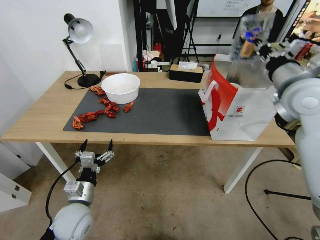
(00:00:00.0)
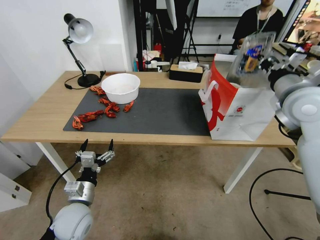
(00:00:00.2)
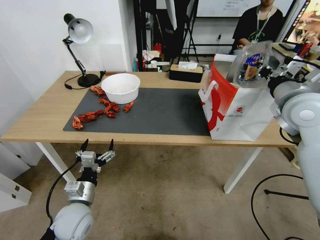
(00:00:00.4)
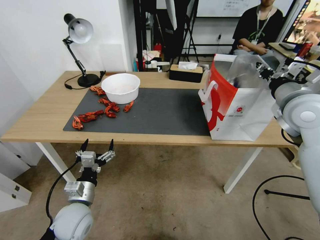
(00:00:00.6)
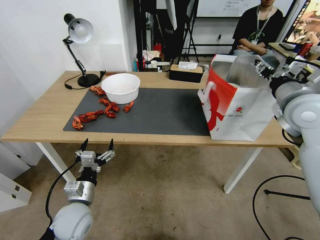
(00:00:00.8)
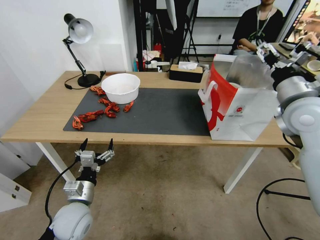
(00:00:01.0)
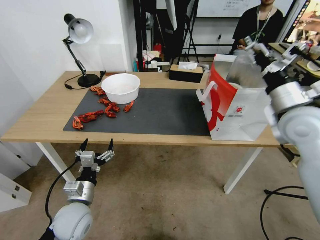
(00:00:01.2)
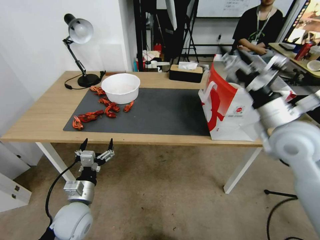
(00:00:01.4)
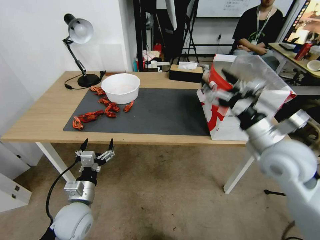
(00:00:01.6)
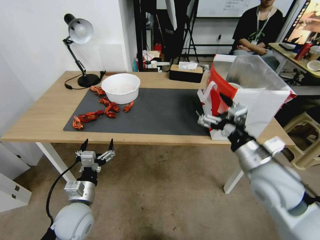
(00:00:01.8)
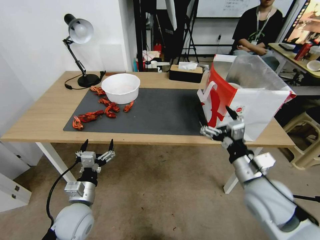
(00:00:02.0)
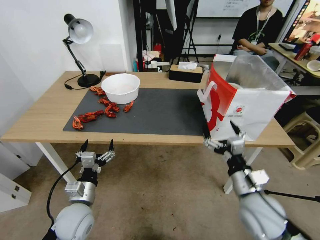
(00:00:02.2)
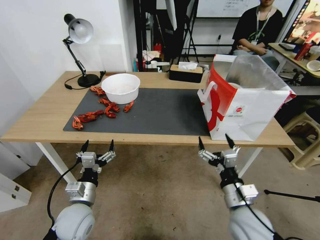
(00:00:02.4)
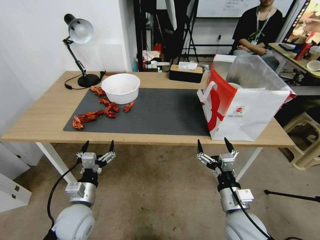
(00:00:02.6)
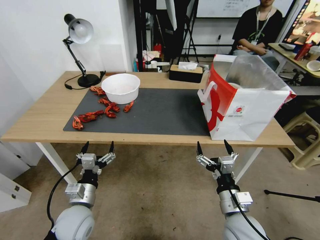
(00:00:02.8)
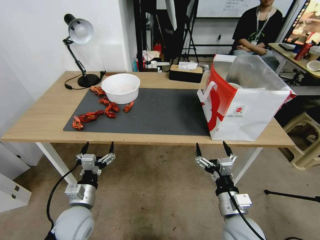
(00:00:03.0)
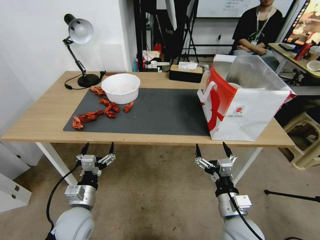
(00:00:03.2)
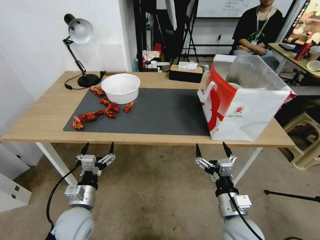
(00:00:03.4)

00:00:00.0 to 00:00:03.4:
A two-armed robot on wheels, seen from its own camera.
Task of the whole recording: Close the takeout container lid, then place the container into the takeout bag.
00:00:00.0 to 00:00:01.6: The right gripper travels downward and backward by about 15 cm, and opens its fingers.
00:00:01.6 to 00:00:03.4: The right gripper travels downward and backward by some 25 cm.
